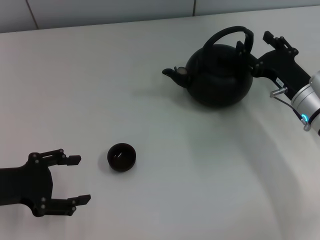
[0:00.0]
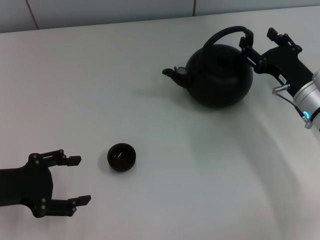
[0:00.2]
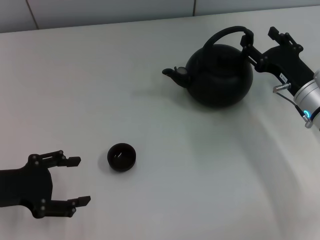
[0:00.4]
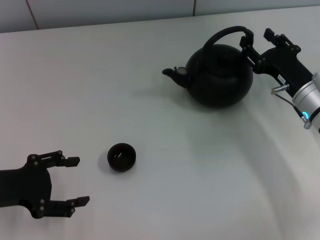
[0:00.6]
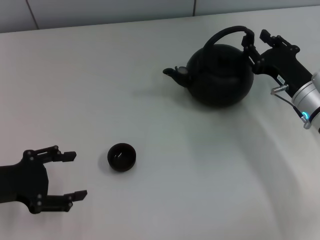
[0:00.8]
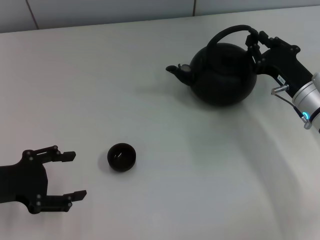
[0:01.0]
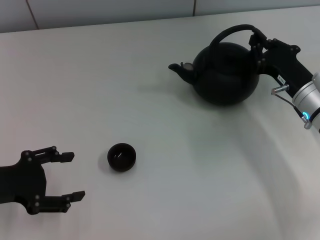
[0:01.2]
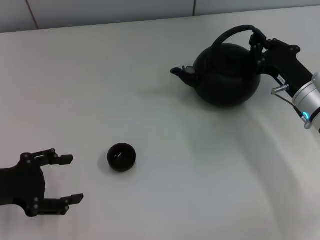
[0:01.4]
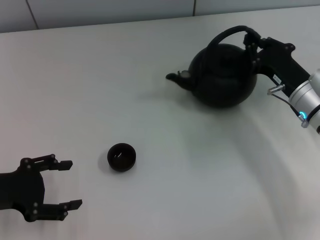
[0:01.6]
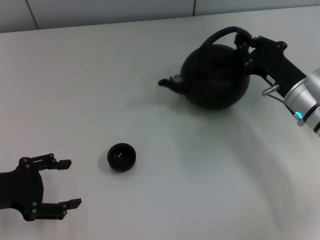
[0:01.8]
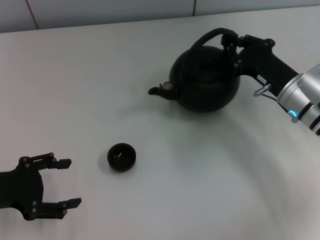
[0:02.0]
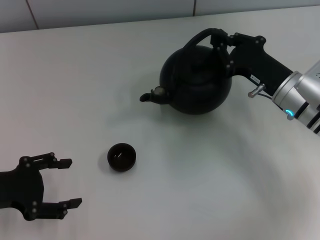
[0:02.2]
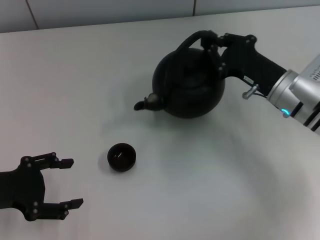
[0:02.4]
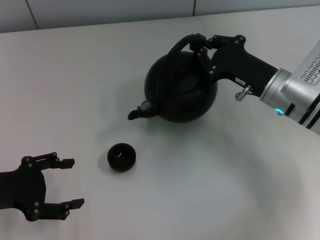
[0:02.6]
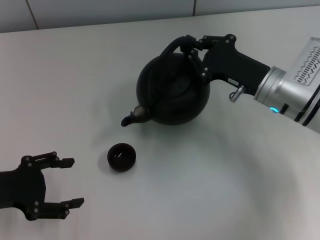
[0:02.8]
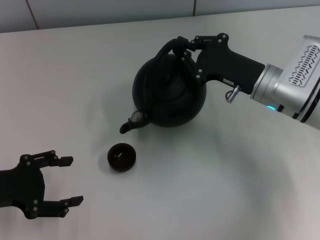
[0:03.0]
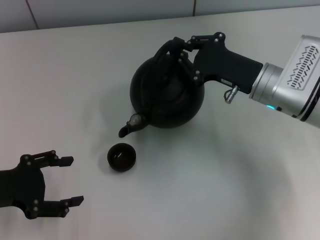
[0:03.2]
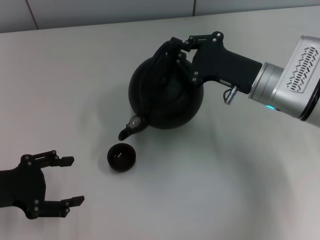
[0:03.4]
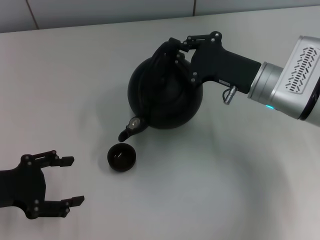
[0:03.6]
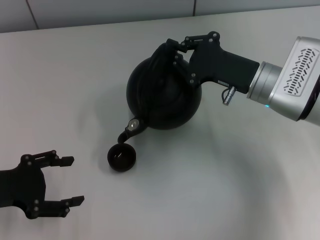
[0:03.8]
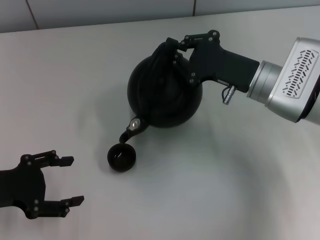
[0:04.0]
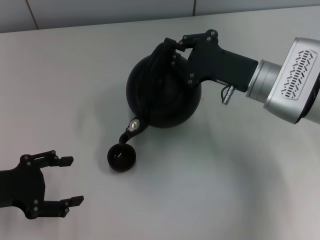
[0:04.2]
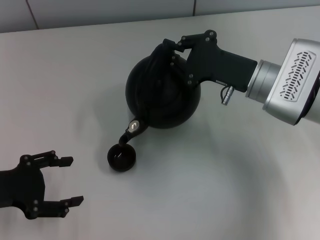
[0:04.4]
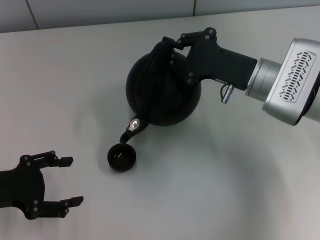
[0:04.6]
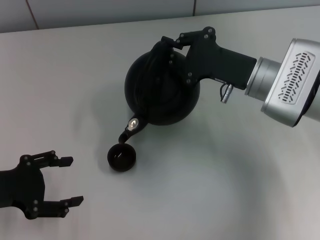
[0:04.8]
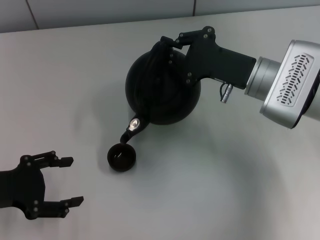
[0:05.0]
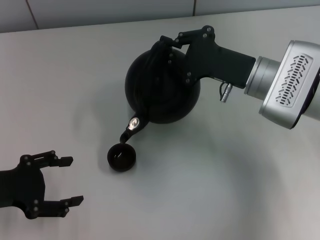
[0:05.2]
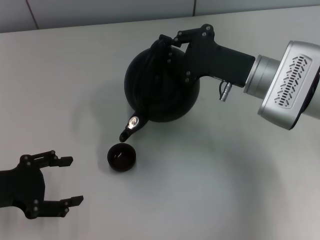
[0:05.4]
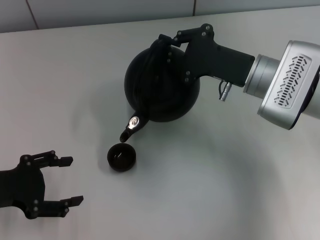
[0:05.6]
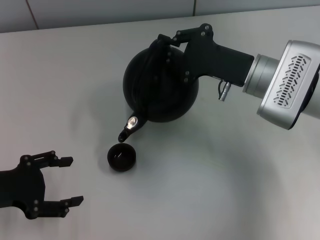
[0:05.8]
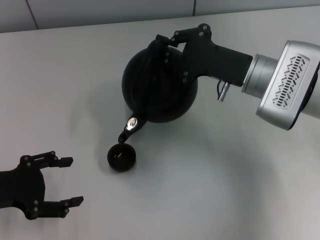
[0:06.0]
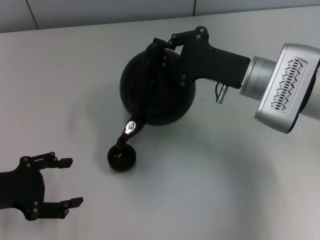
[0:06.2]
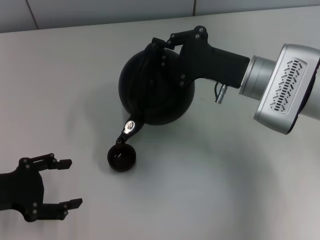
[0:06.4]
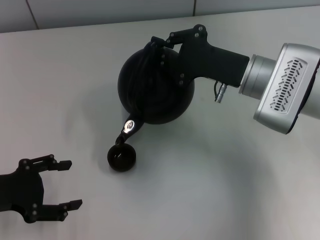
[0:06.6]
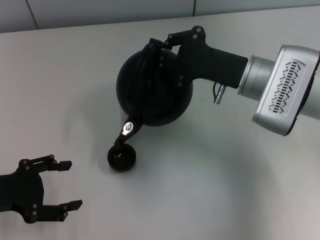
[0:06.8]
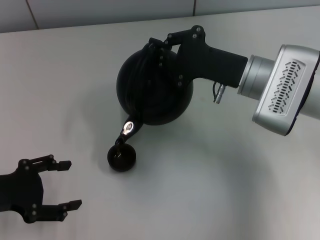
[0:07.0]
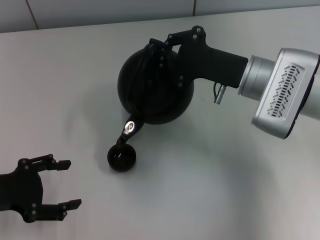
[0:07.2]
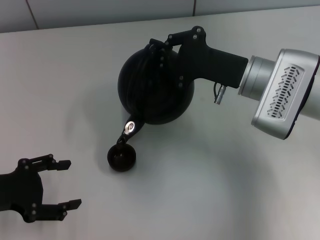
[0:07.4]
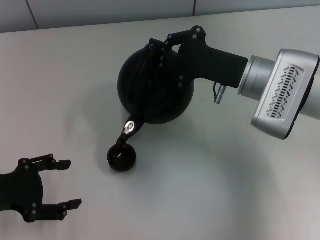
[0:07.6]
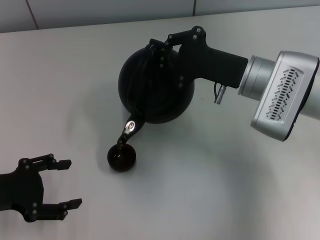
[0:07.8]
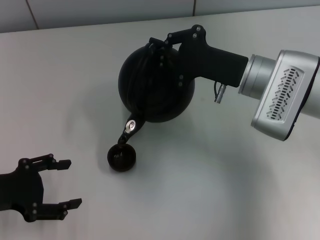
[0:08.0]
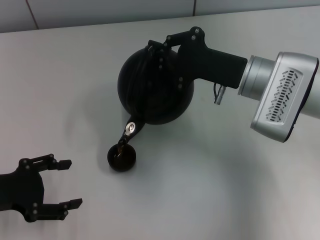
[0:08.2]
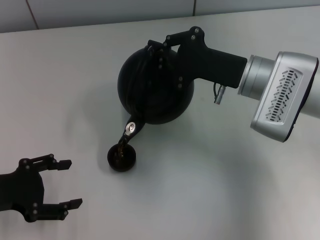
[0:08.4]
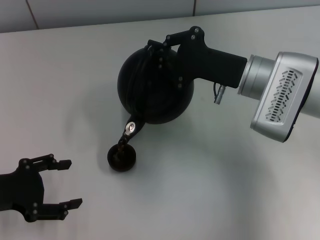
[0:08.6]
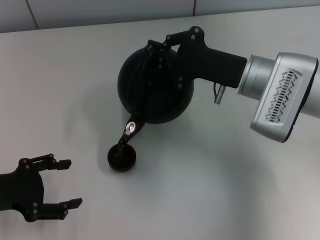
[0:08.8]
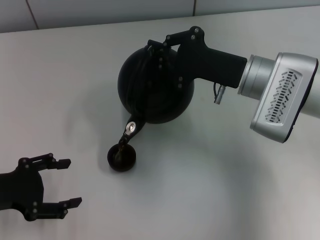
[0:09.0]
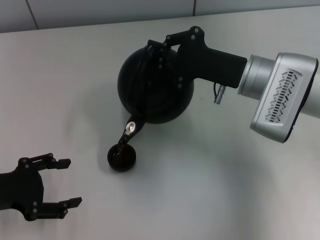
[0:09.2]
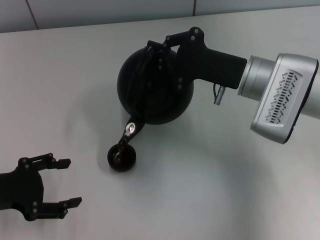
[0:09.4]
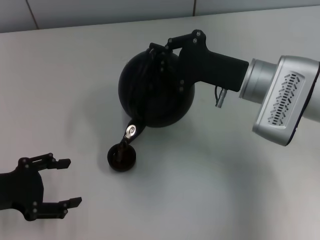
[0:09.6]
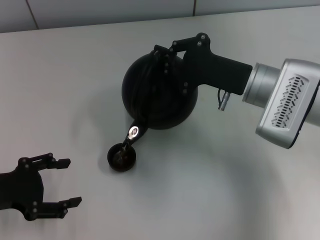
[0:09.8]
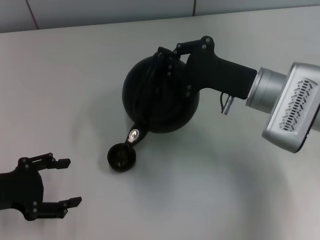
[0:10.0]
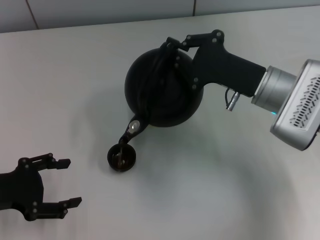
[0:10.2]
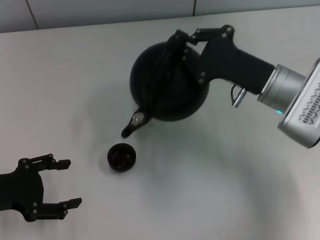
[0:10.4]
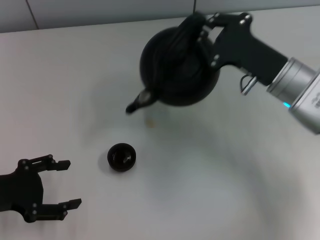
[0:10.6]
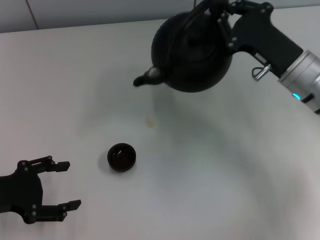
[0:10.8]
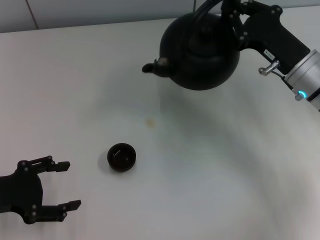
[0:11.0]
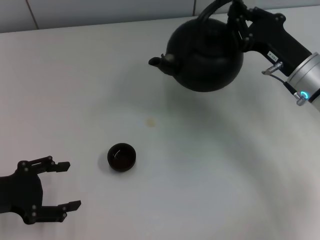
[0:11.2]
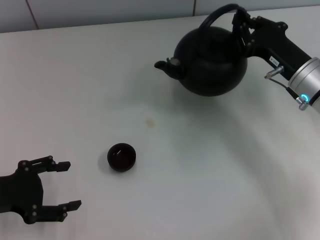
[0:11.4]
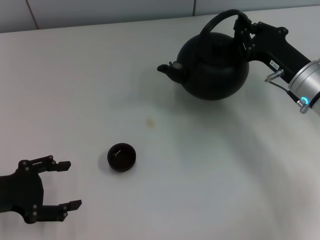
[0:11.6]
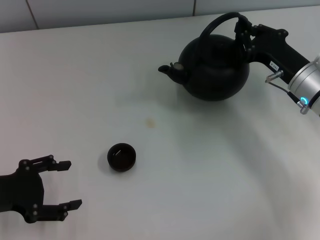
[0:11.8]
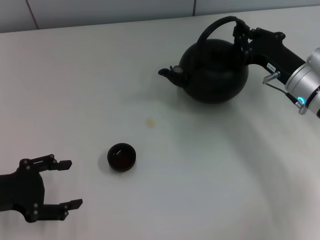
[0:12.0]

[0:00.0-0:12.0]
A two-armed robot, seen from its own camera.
Task of the whole recording: Grasp the handle of the teapot with one hand and pour tea into the teacup.
Step, 0.0 to 2.0 s: Pick up the teapot with the right gripper.
0.0 to 1.6 s: The right gripper closes.
1.6 to 3.0 s: The right gripper moves to the left, about 5 cm.
3.0 to 4.4 s: There are only small adjustments of the grippers.
4.4 to 7.6 s: There are only small adjustments of the grippers.
7.6 to 9.0 s: Both grippers stay about where they are.
9.0 to 10.4 s: The grippers move only a little.
10.4 to 12.0 s: The right gripper is displaced to the right by approximately 5 cm.

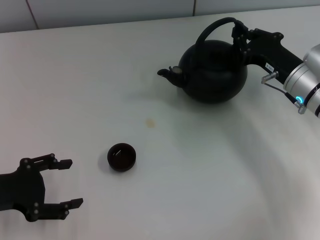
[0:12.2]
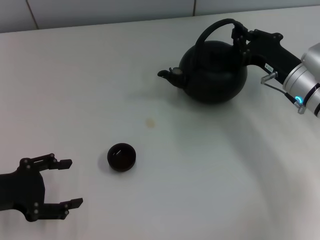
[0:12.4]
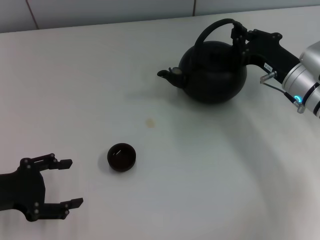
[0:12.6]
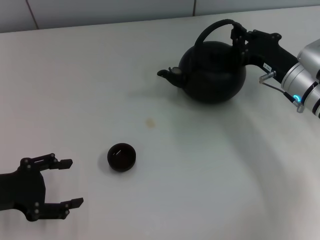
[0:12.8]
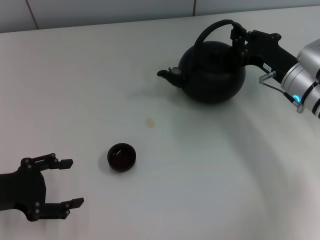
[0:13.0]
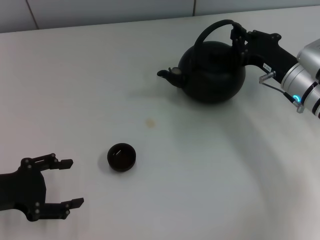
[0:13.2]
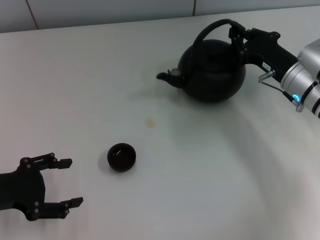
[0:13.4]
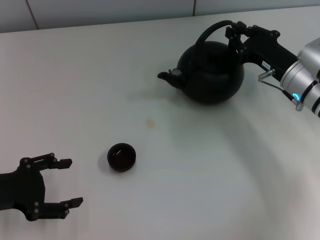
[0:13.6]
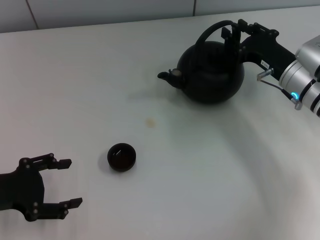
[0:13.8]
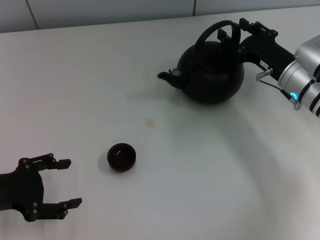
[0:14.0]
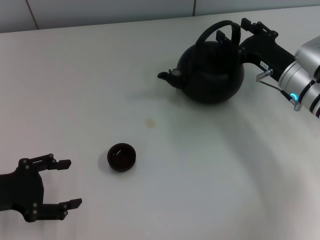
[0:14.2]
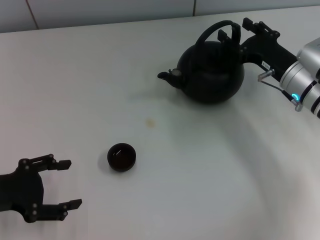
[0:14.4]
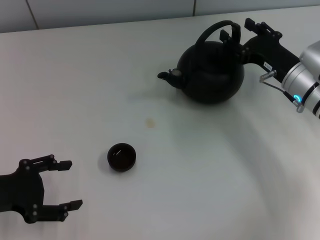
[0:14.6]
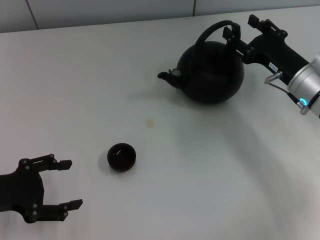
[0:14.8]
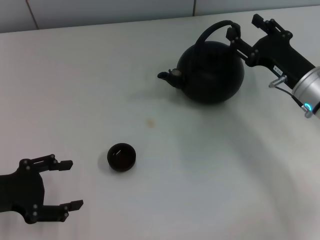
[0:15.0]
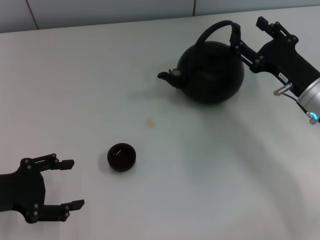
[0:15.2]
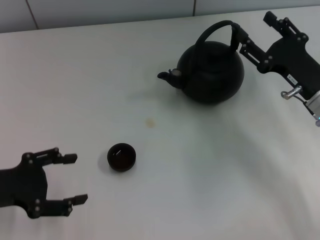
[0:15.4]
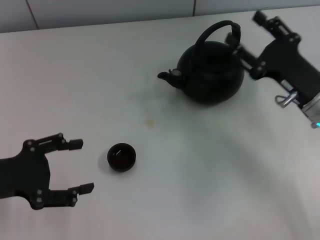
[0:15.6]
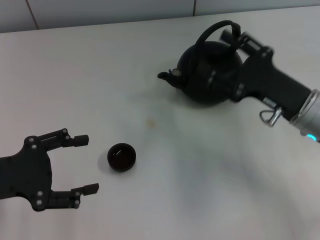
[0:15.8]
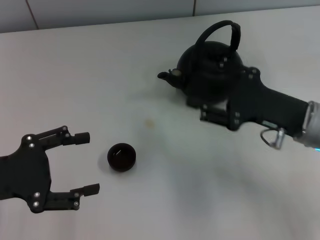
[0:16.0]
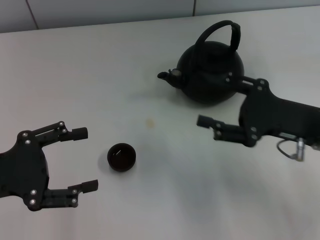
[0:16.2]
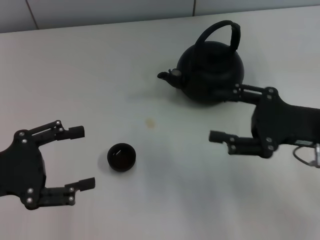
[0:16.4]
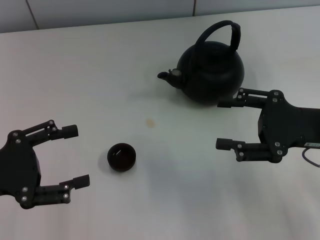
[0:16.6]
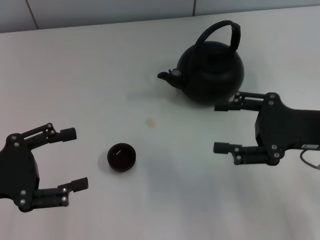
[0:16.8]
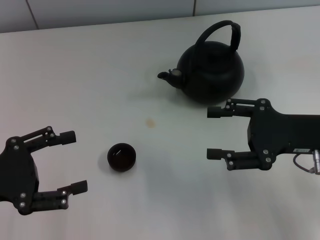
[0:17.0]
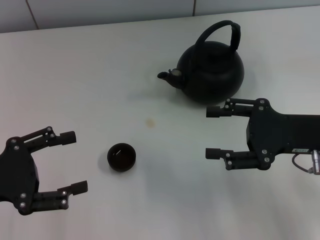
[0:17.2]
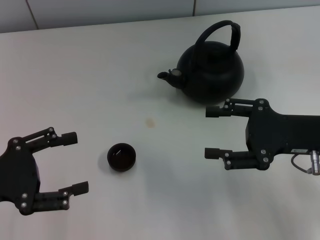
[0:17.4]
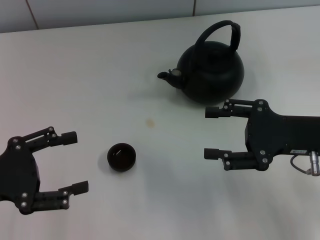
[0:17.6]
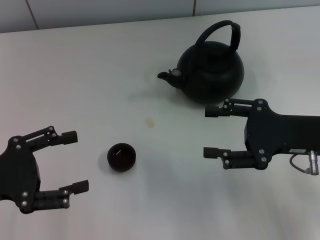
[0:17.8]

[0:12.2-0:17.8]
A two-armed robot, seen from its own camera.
Task of the whole recording: Grasp the handle of the teapot with one hand and pour tea into the teacup.
Step, 12.2 to 14.2 s: Put down the teapot with the right gripper.
12.2 to 13.6 s: Neither gripper changes place.
13.6 to 15.0 s: The right gripper opens.
15.0 to 16.4 s: The right gripper is displaced backward by some 5 cm.
16.4 to 17.8 s: There are only small adjustments of the grippers.

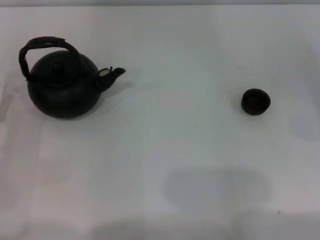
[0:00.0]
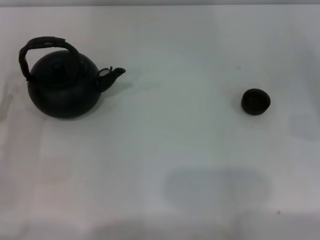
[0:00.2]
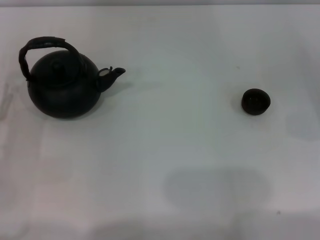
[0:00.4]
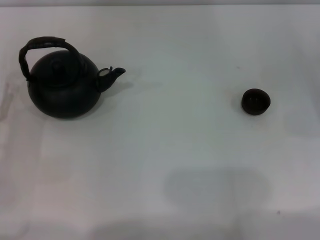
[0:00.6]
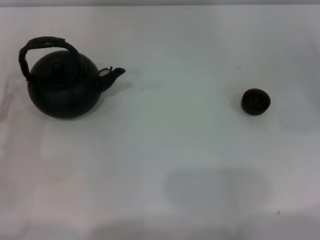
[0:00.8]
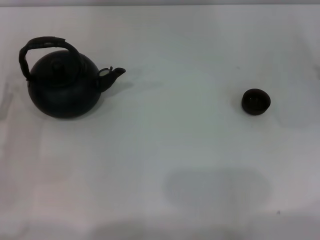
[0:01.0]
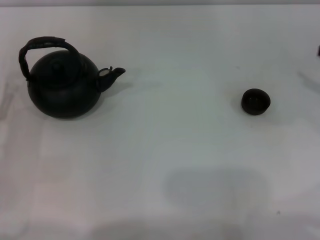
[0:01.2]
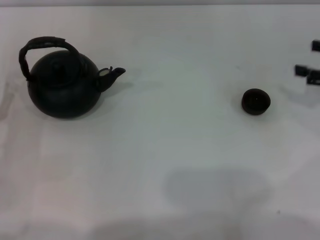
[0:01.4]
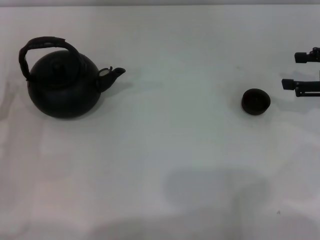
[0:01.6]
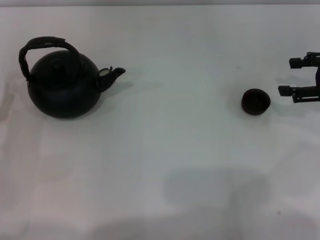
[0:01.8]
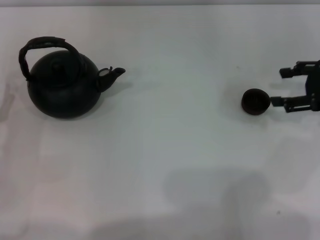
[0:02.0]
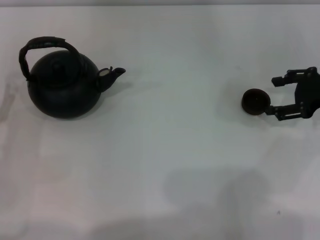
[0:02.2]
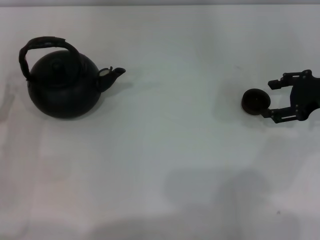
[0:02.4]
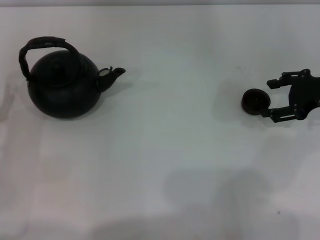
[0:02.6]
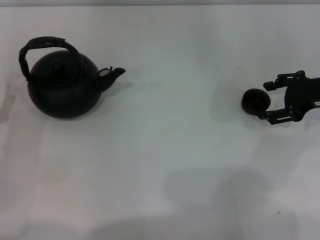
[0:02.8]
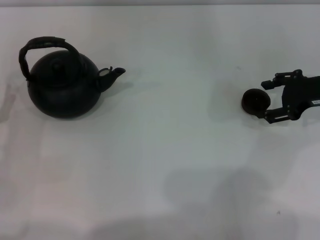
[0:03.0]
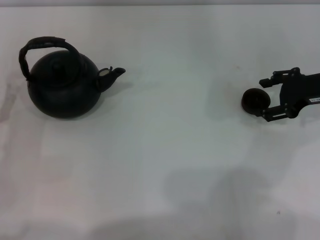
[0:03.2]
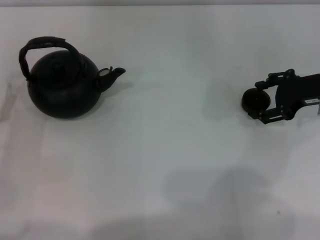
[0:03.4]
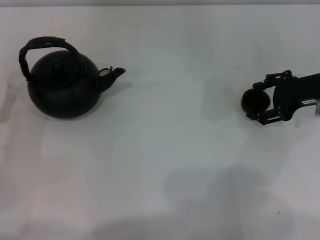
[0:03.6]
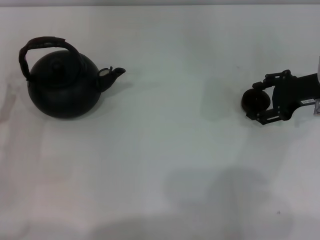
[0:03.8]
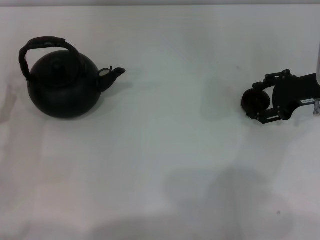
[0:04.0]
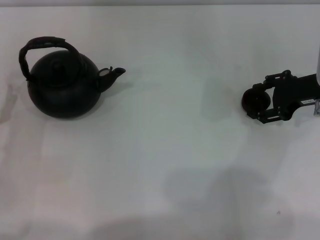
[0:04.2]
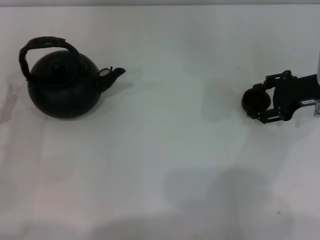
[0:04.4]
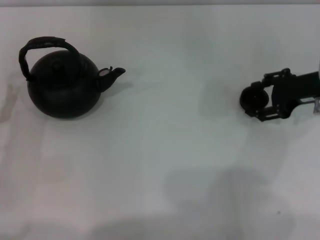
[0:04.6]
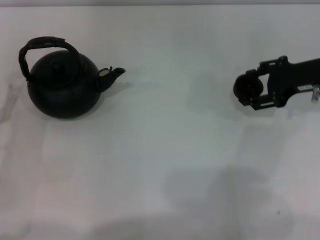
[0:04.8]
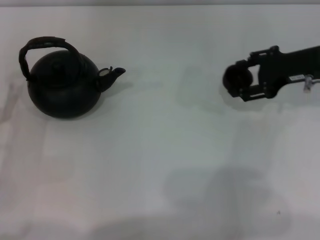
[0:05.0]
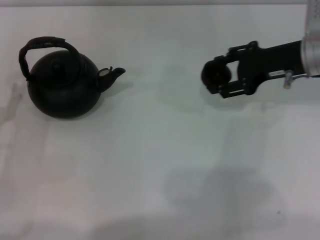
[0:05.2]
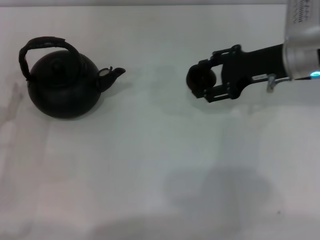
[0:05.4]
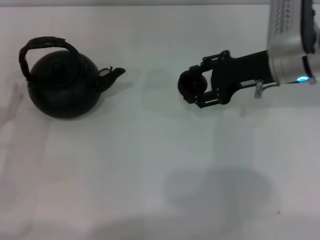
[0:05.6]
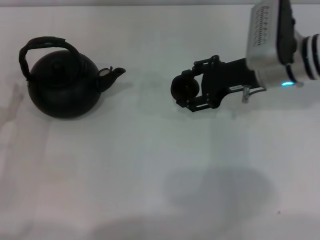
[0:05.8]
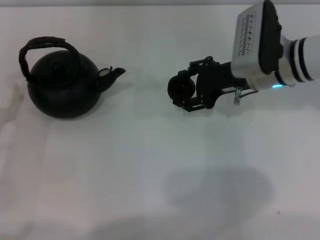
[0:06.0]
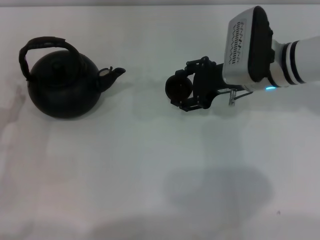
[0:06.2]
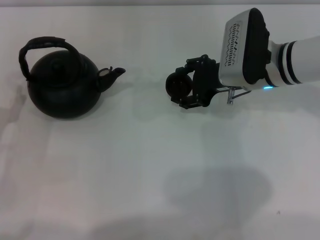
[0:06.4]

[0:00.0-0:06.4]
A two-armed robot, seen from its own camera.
Task of the whole recording: Grasp the handle of the teapot with one hand and pour tea into the teacup.
Step, 0.0 to 4.6 s: Pick up the teacup with the right gripper.
0.0 to 1.6 s: The right gripper heads upward and forward, covering about 10 cm.
1.6 to 3.2 s: The right gripper moves to the left, some 5 cm.
3.2 to 4.8 s: The grippers move only a little.
4.8 to 6.4 s: The right gripper goes approximately 10 cm to the left.
